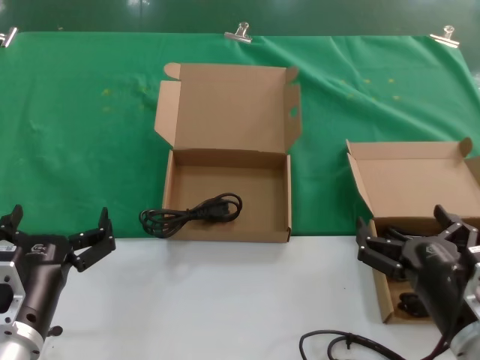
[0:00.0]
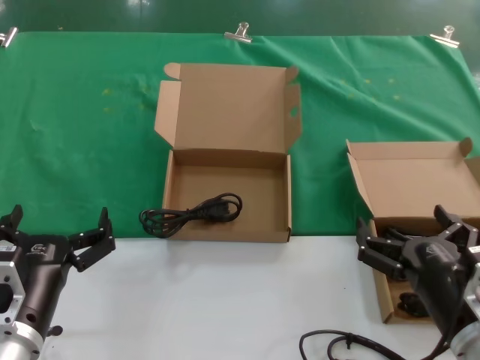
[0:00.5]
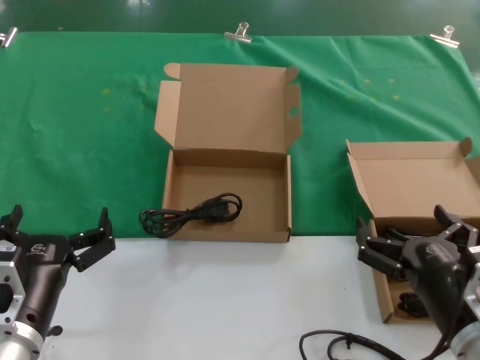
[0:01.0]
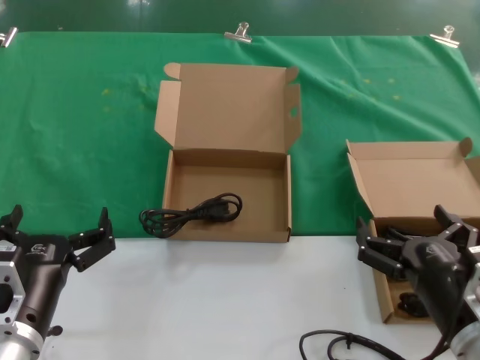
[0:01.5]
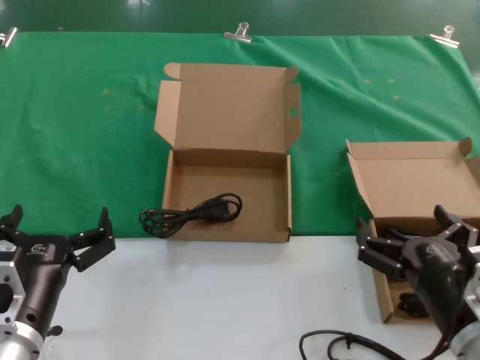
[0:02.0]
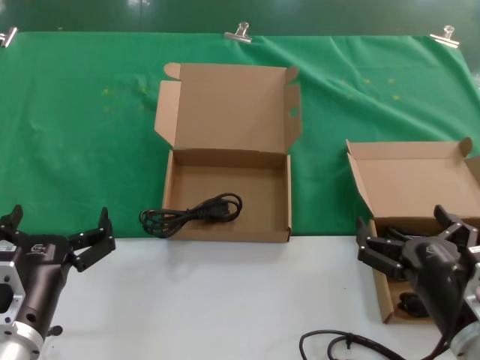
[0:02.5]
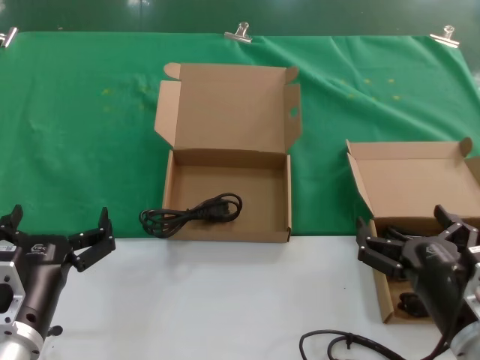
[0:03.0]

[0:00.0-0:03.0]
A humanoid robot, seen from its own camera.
Task of the whole recording: take the parts from the box containing them and put them into an empty box.
0:00.0 to 0:03.0: Both hands stay put.

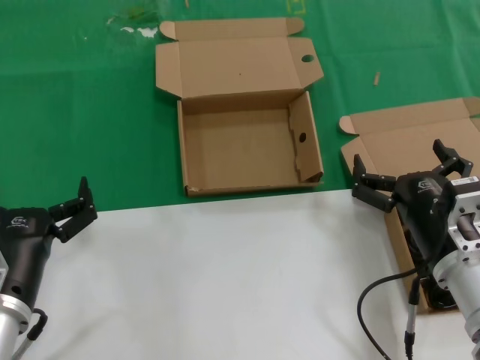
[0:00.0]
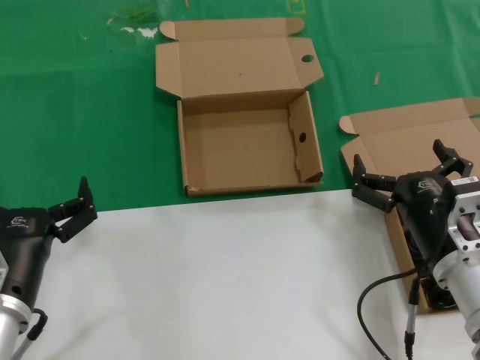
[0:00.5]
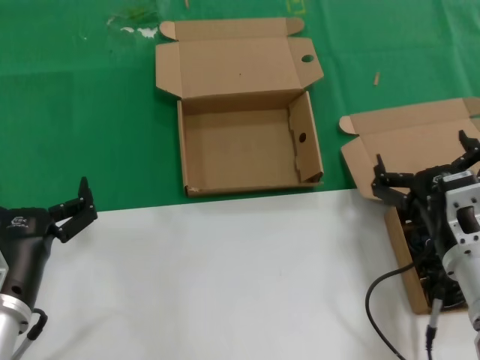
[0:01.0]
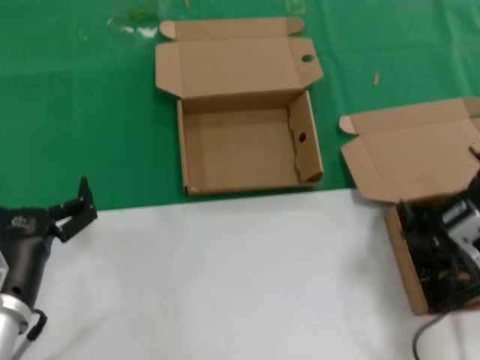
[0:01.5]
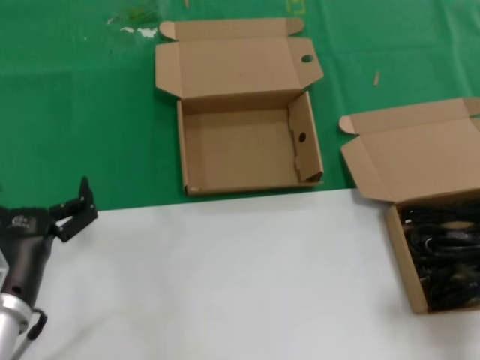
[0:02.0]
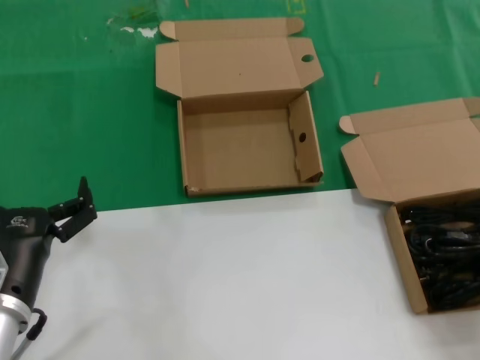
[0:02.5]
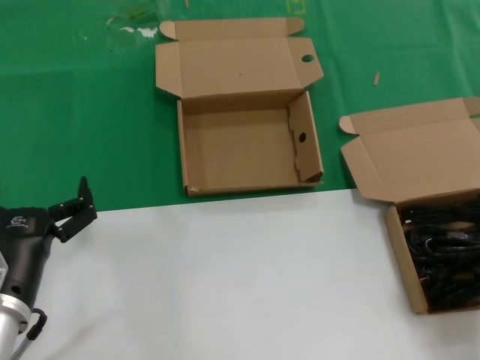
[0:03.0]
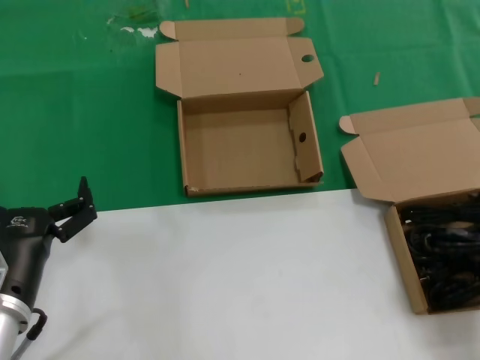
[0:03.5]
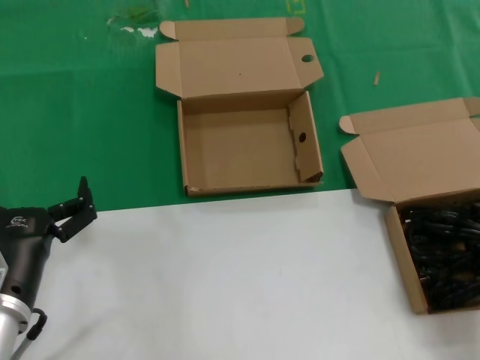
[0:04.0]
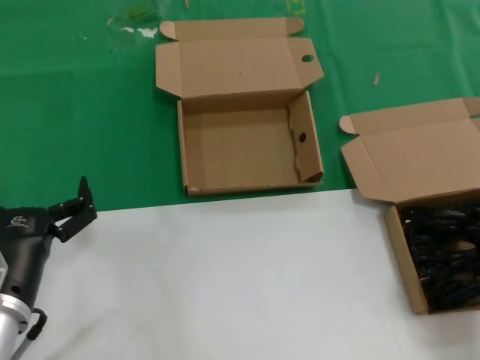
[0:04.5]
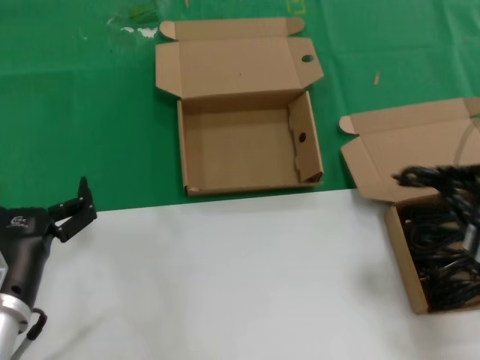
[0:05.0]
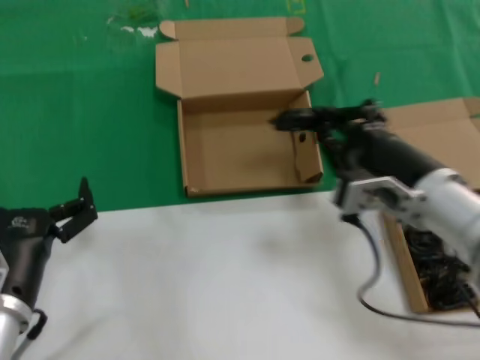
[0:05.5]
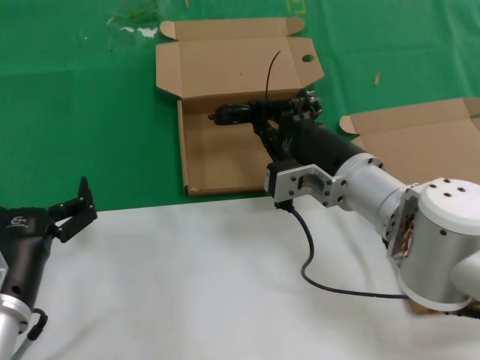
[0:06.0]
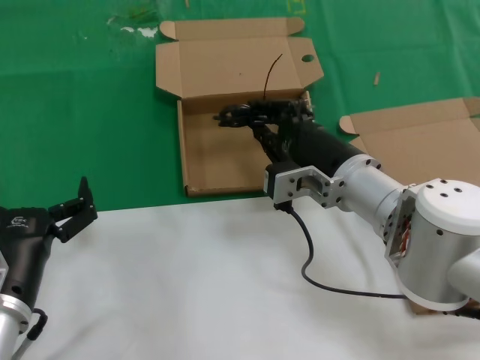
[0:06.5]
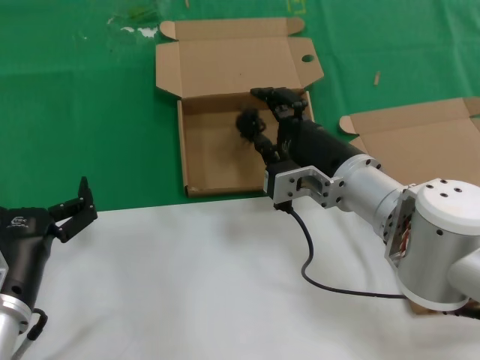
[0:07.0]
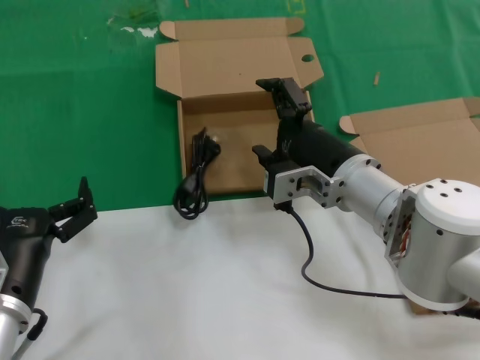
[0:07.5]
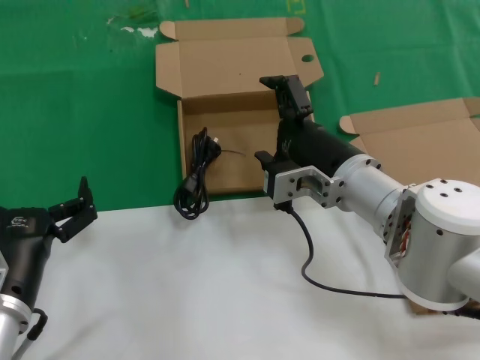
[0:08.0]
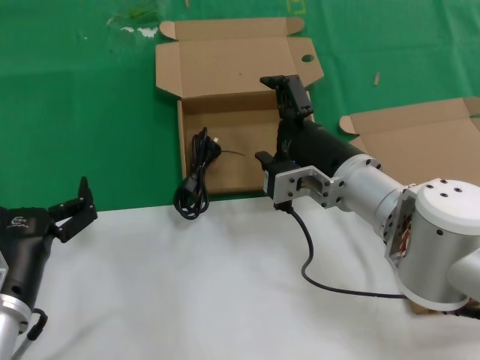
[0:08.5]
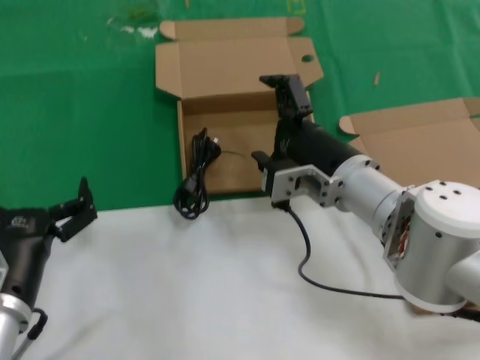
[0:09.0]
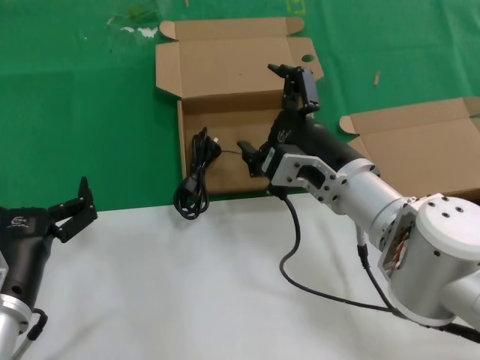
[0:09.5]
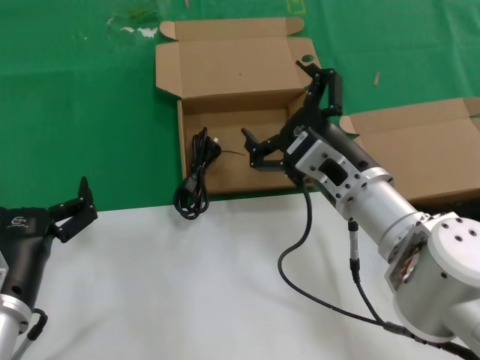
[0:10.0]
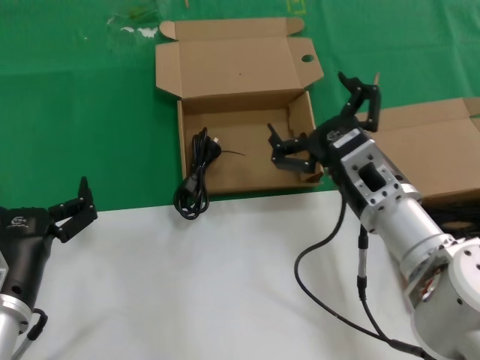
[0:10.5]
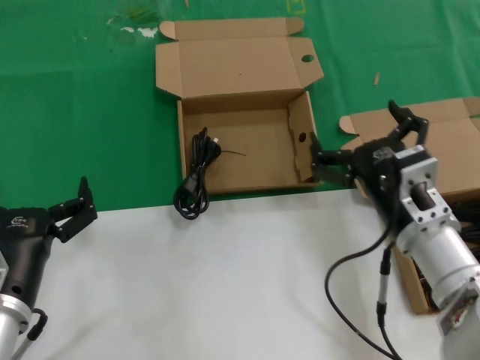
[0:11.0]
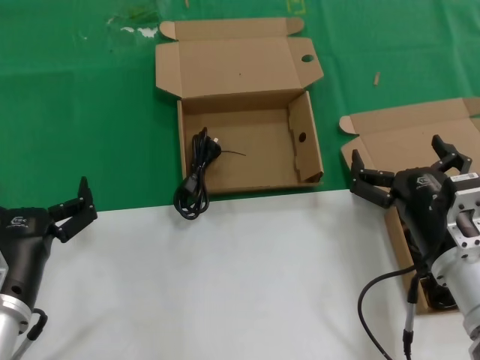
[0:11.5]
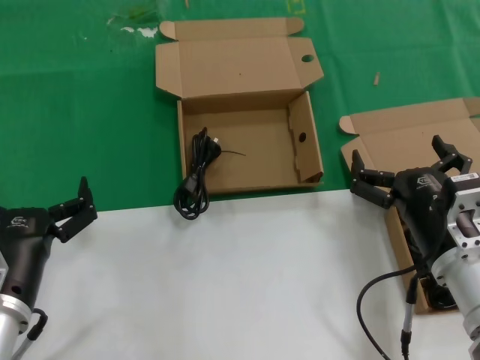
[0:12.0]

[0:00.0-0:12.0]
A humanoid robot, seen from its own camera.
Task of the whole recording: take the parts from the box containing them and put them into an empty box.
Step, 0:00.0 to 0:04.0: Grasp the data cable.
Step, 0:04.5 to 0:08.5: Place the data cable in the another box.
0:00.0 to 0:02.0: The right hand goes some 15 cm to the right and backward.
0:02.0 to 0:04.0: There are only small adjustments of the hands.
0:04.0 to 0:06.0: The right hand shifts about 25 cm to the left and forward.
0:06.0 to 0:08.0: The two hands keep their place.
0:10.0 to 0:12.0: The right hand goes roughly 15 cm to the right, backward and downward.

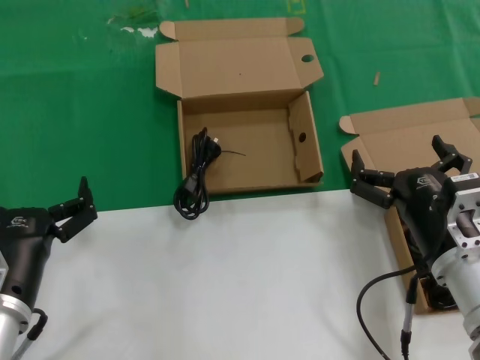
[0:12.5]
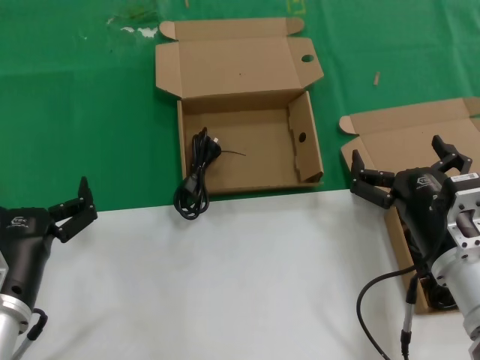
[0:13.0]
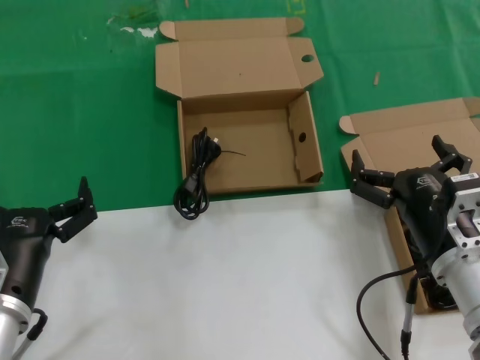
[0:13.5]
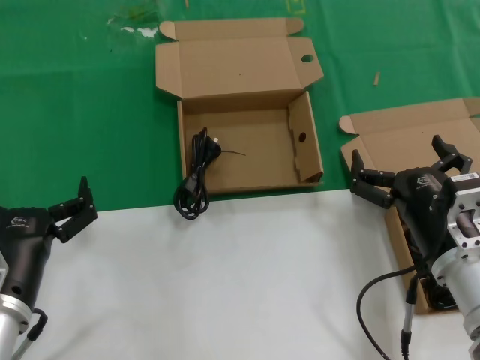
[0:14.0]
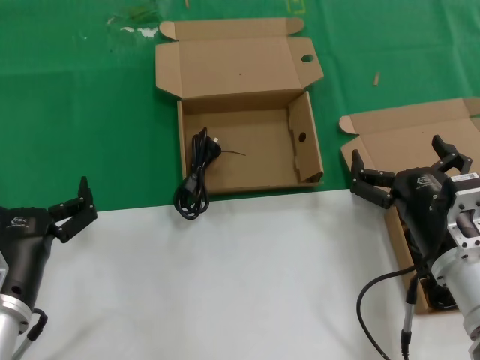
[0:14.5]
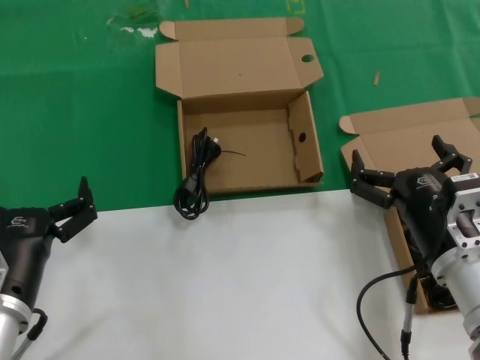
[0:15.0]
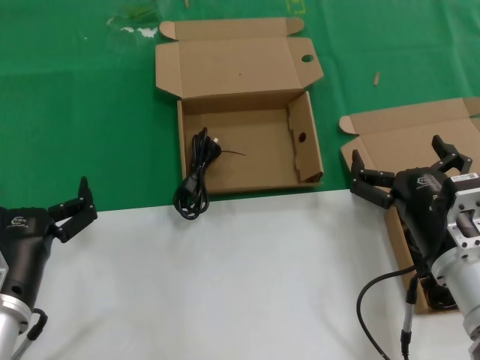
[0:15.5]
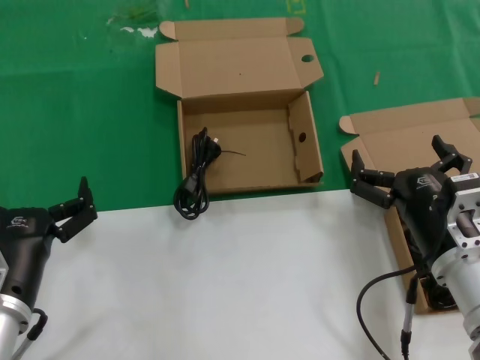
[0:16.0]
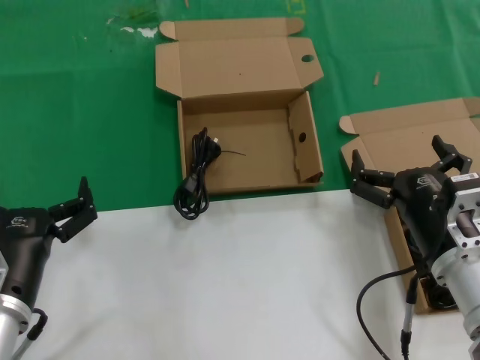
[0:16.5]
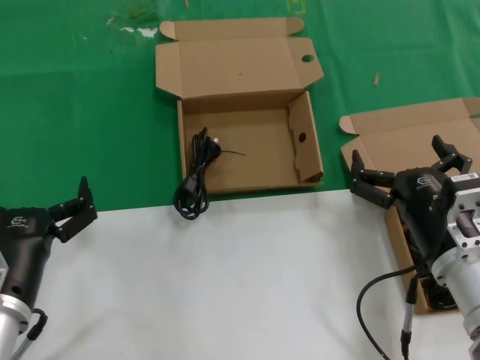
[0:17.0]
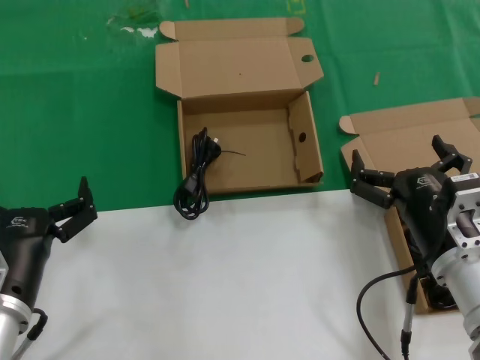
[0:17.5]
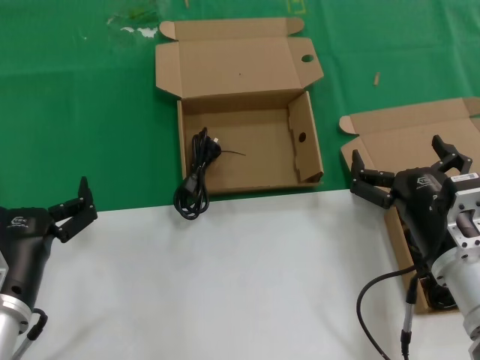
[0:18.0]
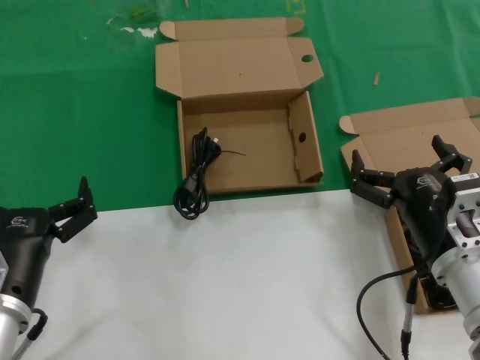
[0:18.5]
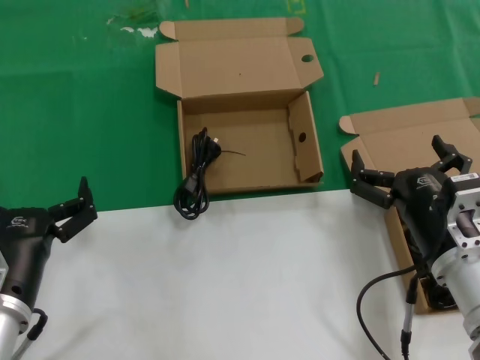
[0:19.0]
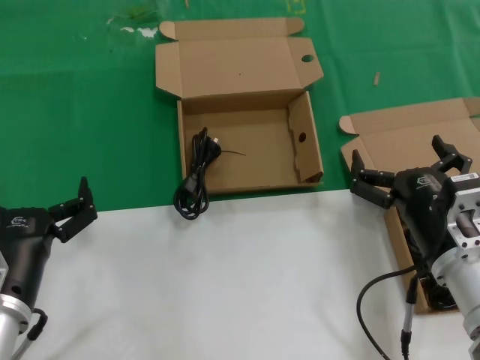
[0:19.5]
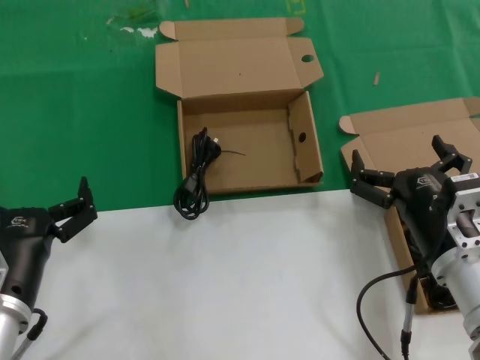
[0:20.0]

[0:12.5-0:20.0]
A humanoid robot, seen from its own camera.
Task of the whole recording: take the parts from the box containing them and put them into an empty box.
0:12.5 to 0:20.0: Both hands stay put.
